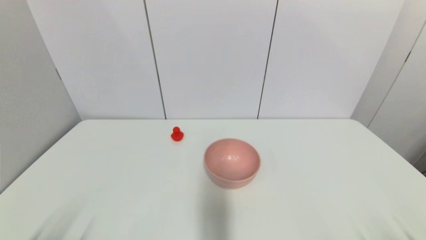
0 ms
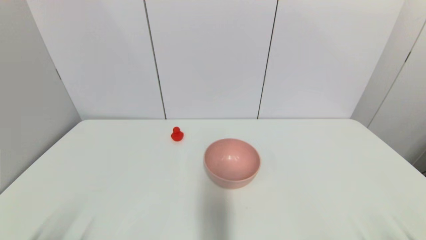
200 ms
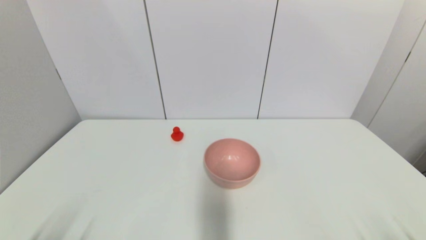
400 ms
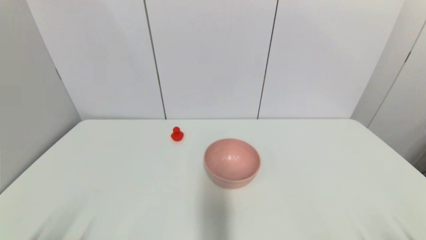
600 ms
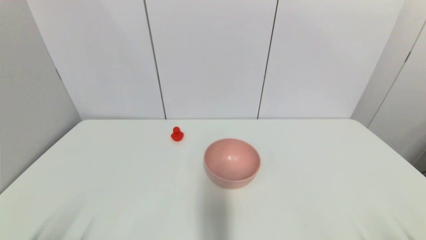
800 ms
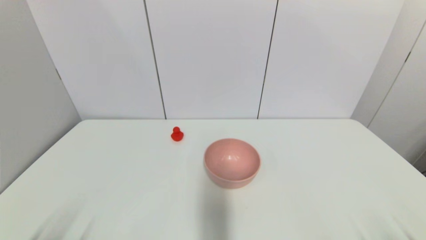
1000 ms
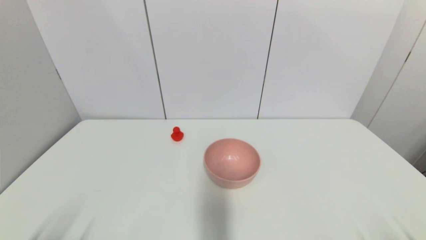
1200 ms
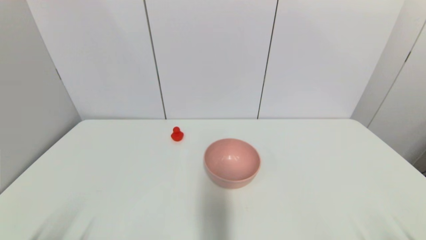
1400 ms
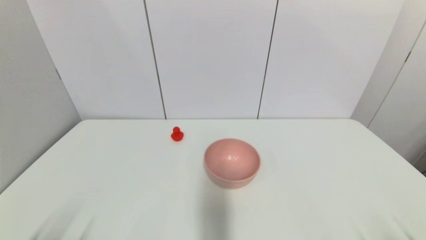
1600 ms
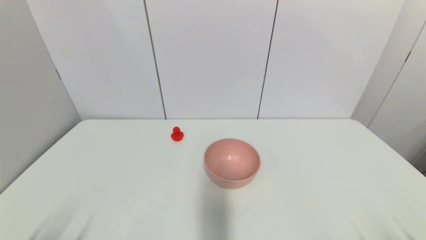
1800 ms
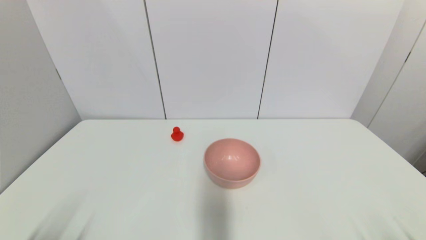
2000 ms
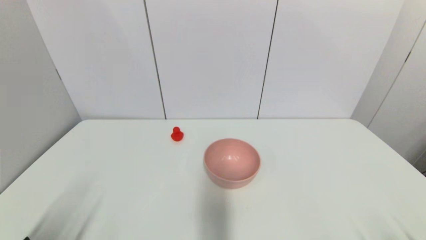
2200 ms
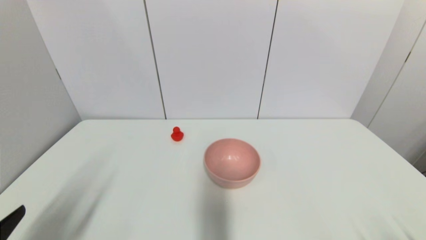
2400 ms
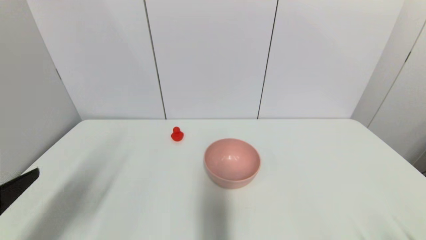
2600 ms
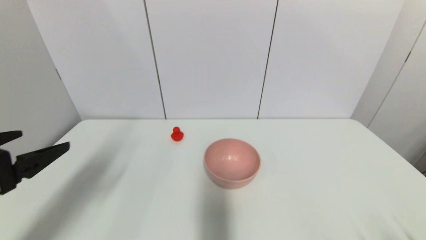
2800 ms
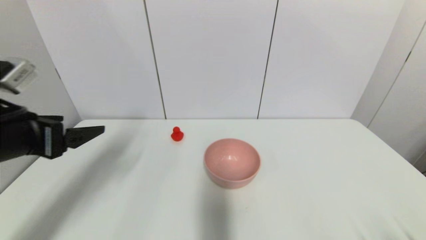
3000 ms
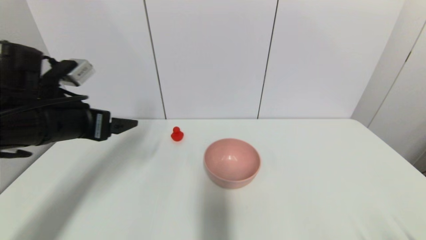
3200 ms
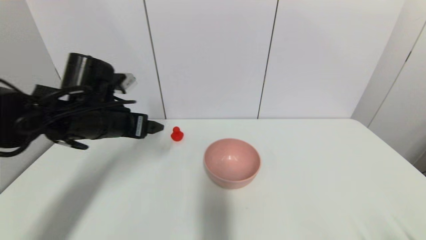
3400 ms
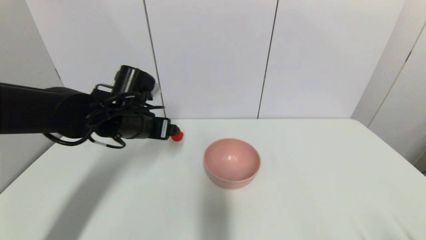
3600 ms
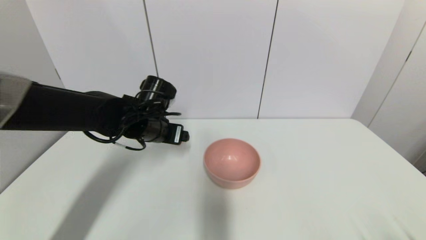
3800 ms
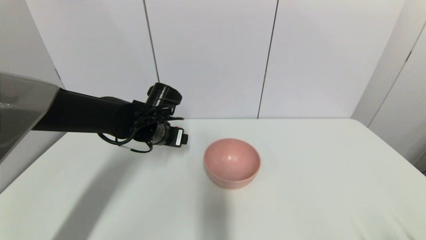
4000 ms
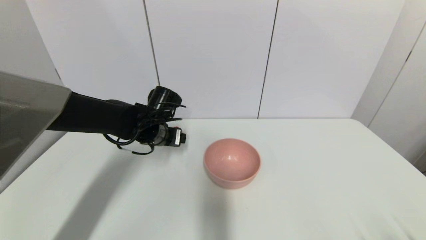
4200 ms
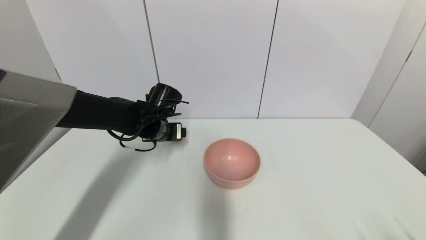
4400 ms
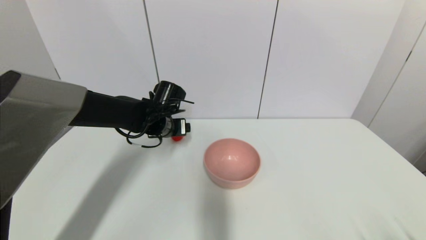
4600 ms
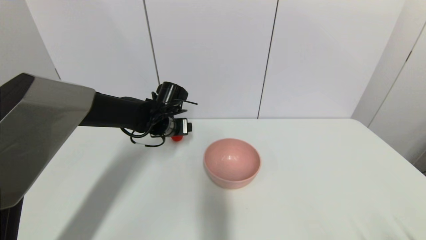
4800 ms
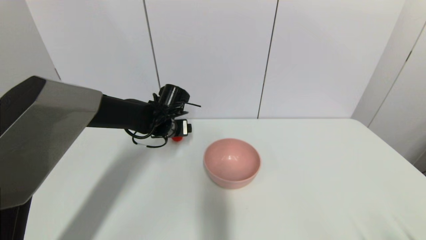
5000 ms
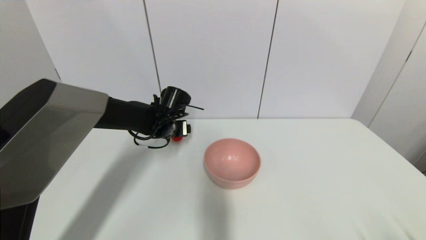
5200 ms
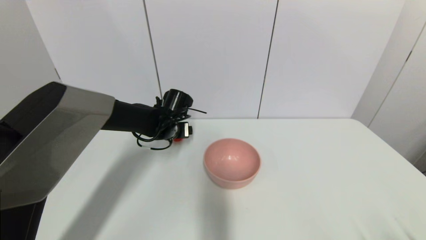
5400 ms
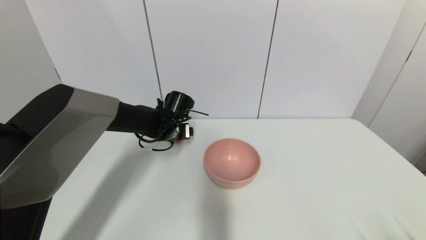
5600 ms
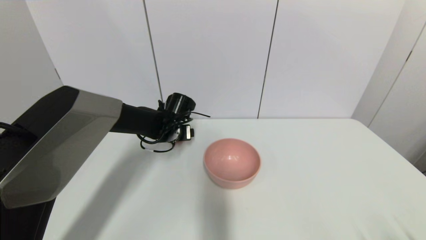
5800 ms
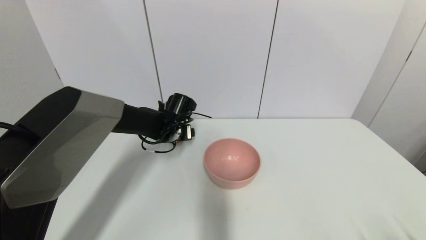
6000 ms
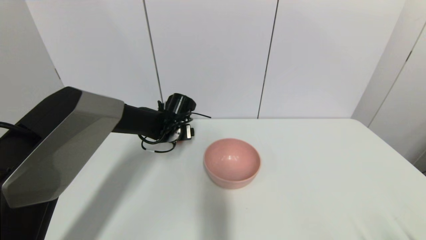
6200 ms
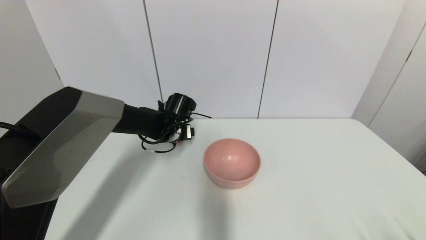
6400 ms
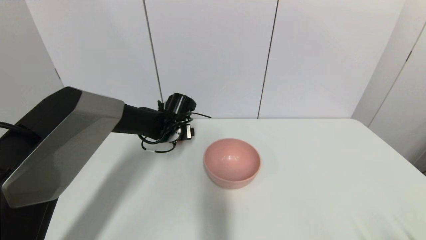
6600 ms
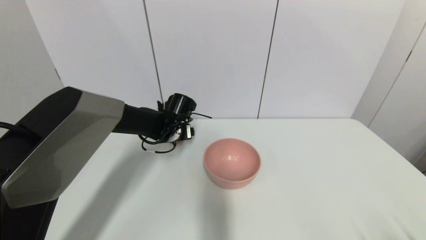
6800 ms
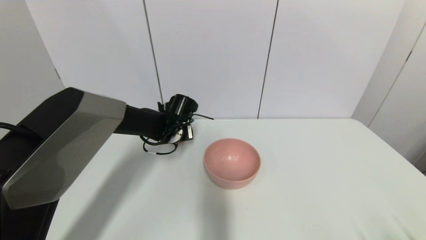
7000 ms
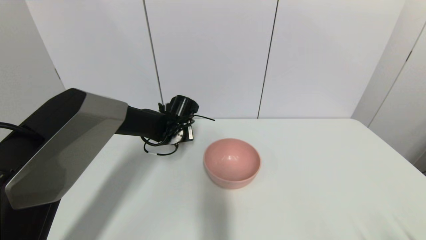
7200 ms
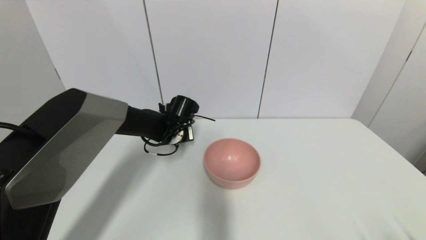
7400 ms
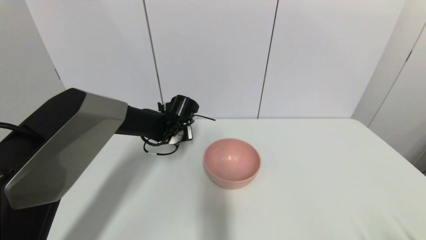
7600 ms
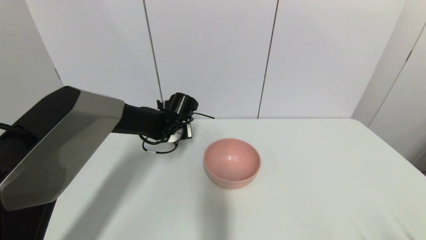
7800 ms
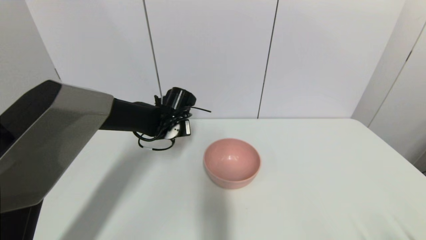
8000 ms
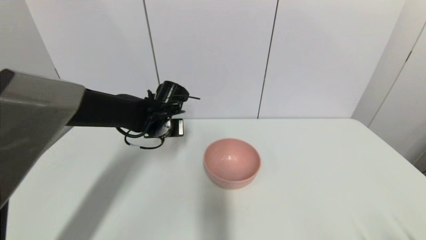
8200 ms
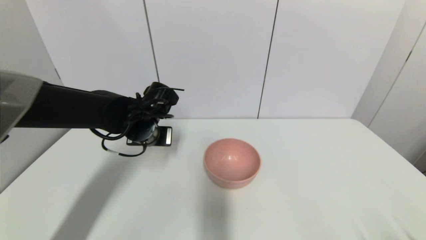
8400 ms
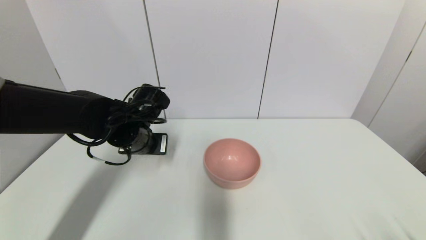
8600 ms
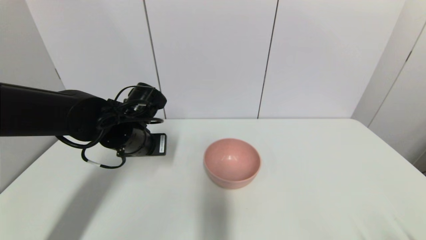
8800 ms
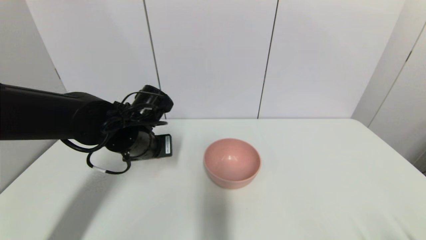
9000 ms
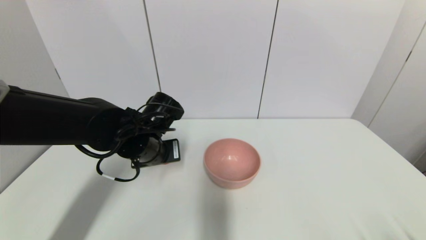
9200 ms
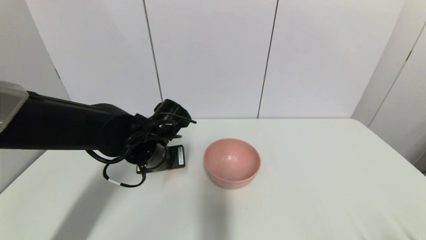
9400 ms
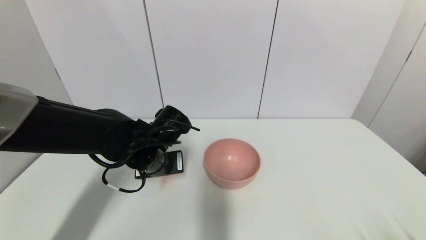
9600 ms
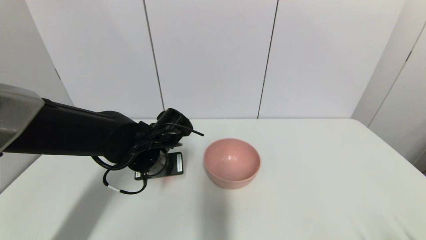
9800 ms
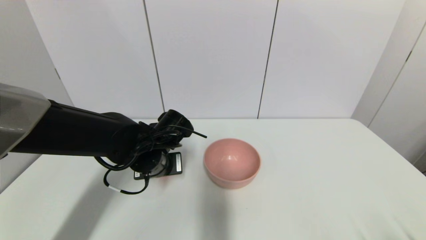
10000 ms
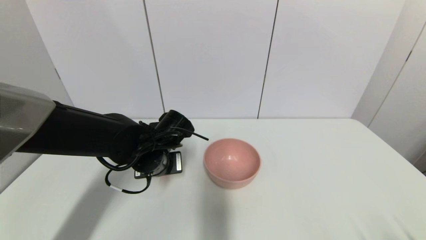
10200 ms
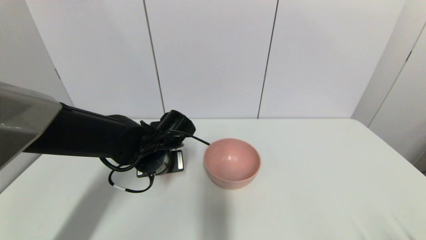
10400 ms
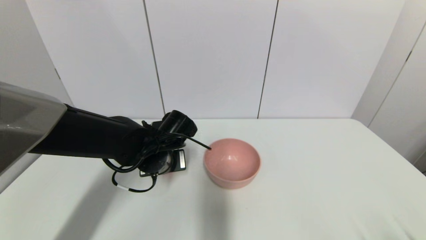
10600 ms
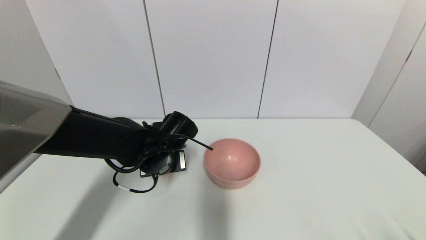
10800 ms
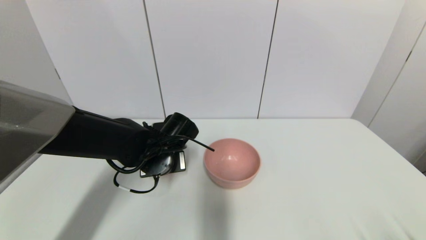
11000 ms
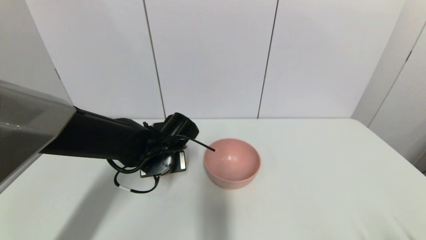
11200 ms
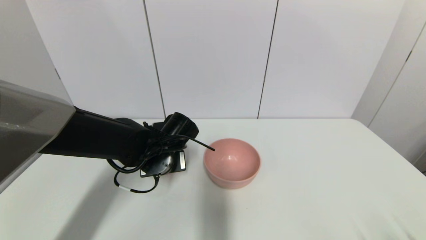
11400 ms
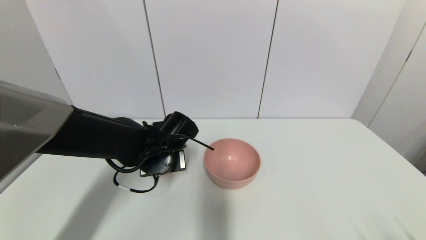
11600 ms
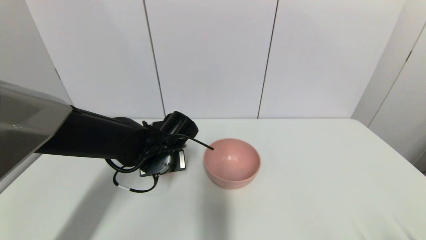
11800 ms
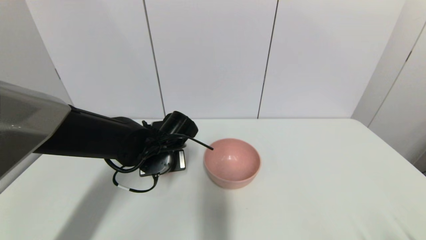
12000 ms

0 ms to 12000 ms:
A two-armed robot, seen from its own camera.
Step, 2400 ms to 8000 ms: Grasp the red duck with left gripper.
0 ms to 1600 ms: Both grippers stay about where they are.
1600 ms to 3000 ms: The left gripper goes approximately 25 cm forward and upward.
3000 ms to 4400 ms: The left gripper travels forward, to the right and downward by roughly 25 cm.
4400 ms to 6000 ms: The left gripper changes place by approximately 5 cm.
6000 ms to 7600 ms: The left gripper closes its fingers.
7600 ms to 9000 ms: The left gripper goes some 15 cm backward and upward.
9000 ms to 10400 ms: The left gripper ends up roughly 5 cm from where it was.
10400 ms to 12000 ms: Both grippers stay put.

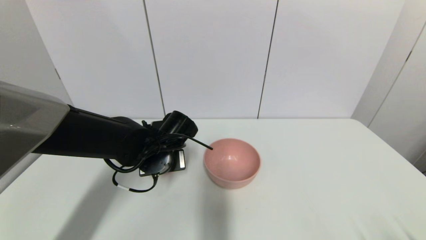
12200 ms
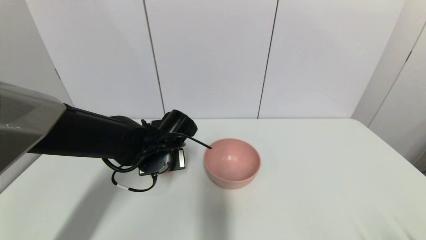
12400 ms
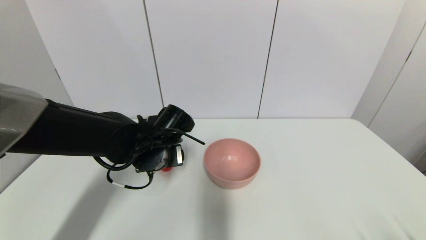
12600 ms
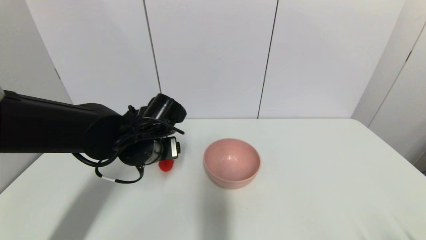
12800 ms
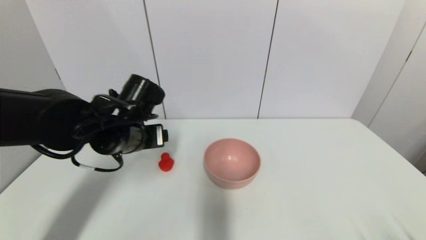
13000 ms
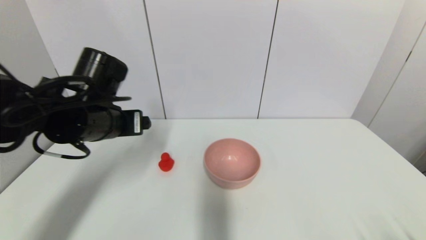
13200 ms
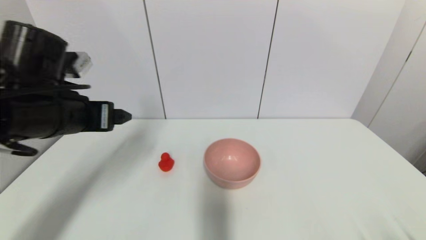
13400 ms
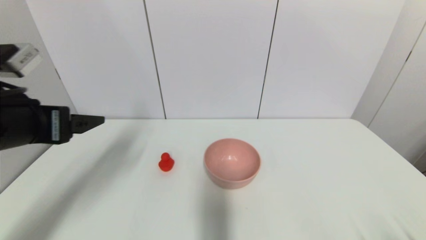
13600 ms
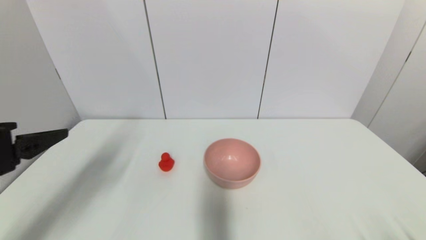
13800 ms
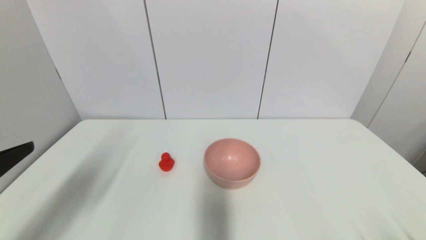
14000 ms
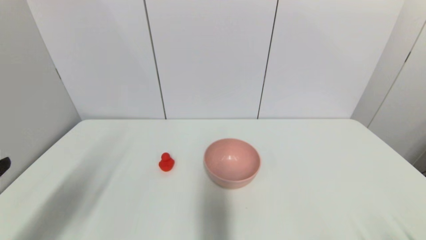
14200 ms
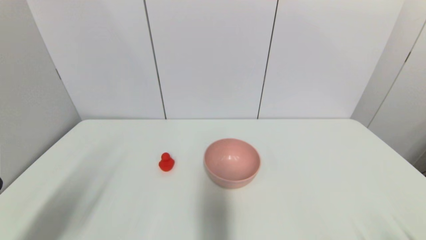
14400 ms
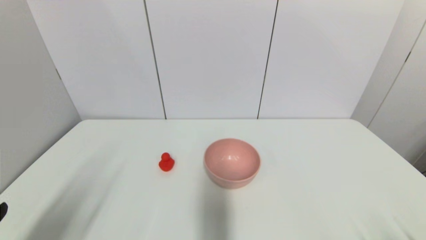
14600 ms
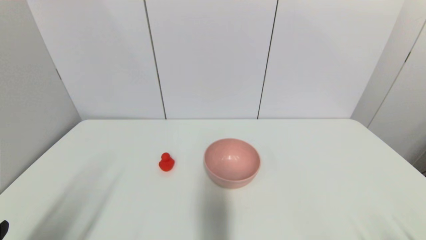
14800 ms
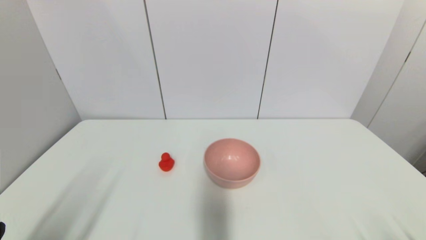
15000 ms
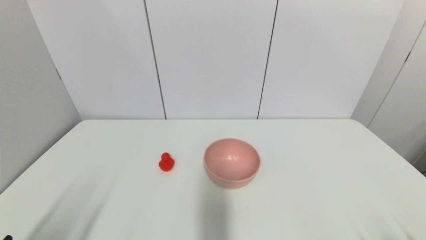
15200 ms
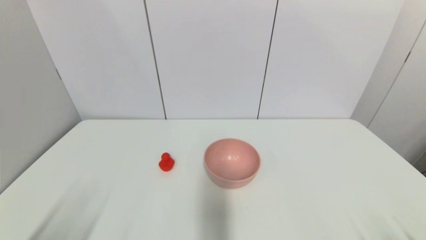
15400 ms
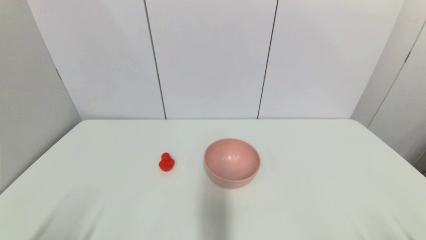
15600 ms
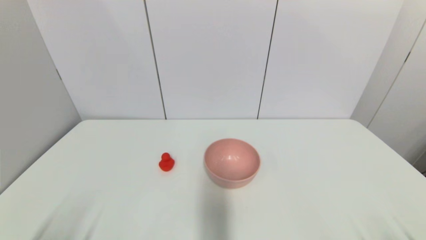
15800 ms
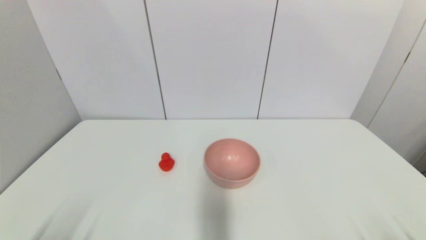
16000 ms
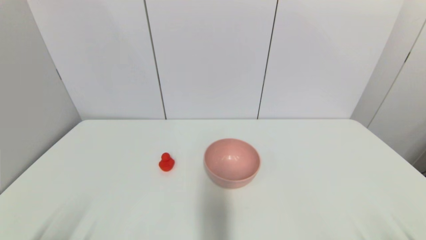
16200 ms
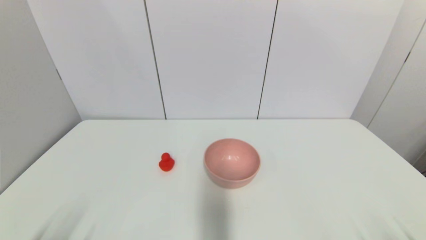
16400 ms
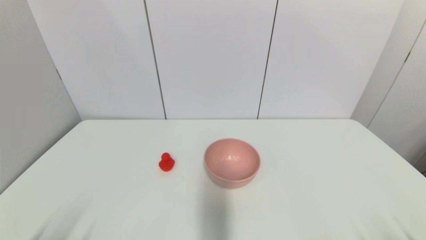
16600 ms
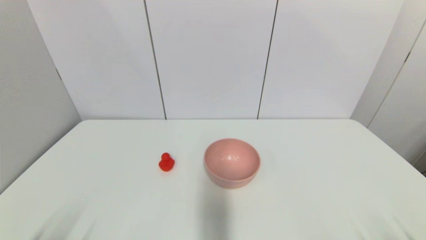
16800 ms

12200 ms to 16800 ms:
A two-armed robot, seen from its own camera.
12200 ms to 13800 ms: The left gripper is displaced backward, to the left and upward by approximately 30 cm, and opens.
13800 ms to 15200 ms: The left gripper moves downward and backward, roughly 20 cm.
